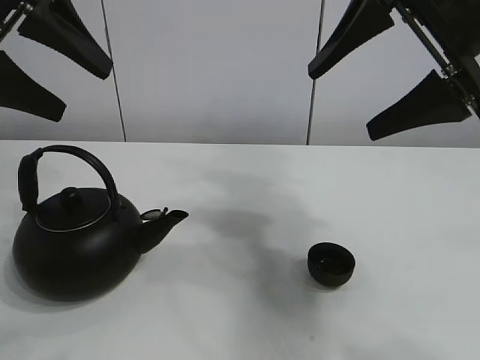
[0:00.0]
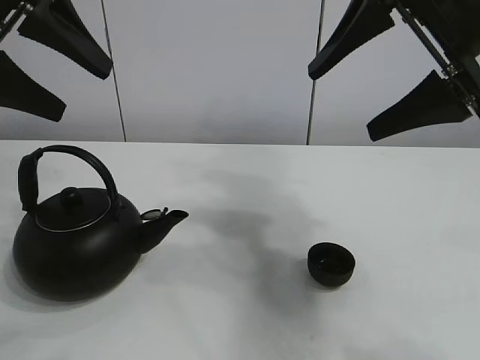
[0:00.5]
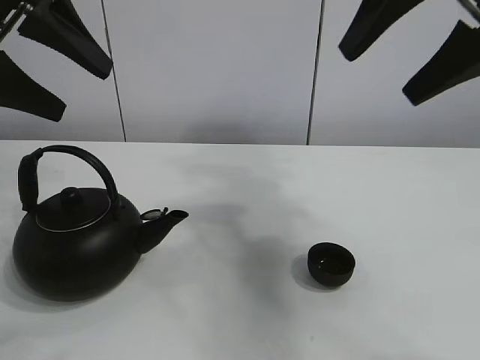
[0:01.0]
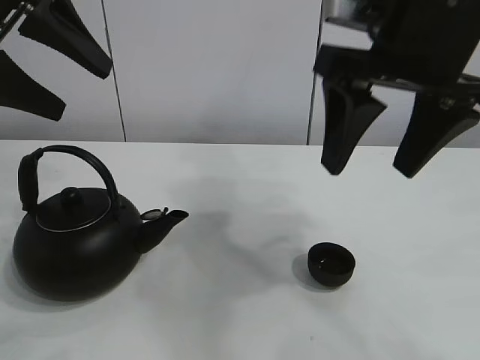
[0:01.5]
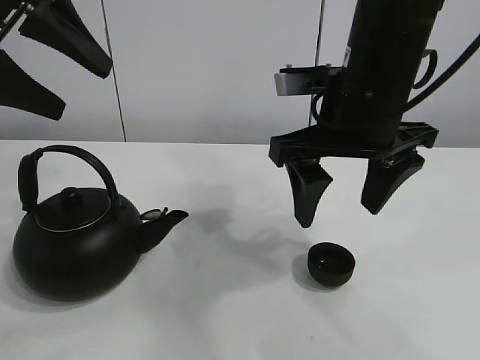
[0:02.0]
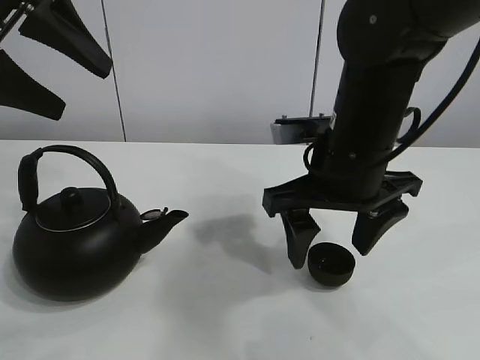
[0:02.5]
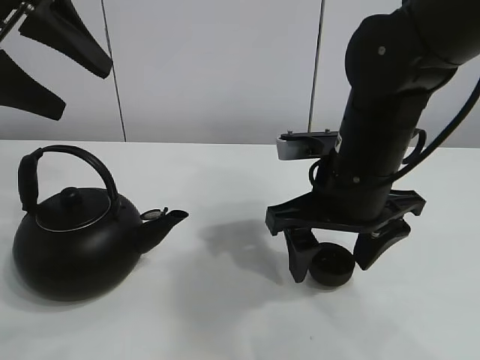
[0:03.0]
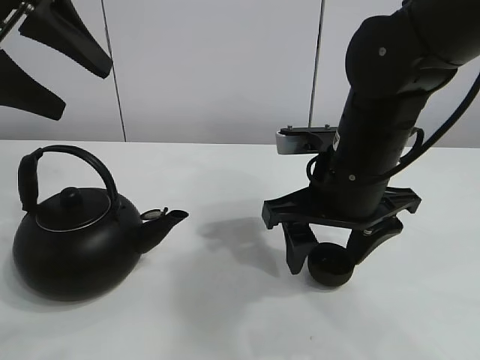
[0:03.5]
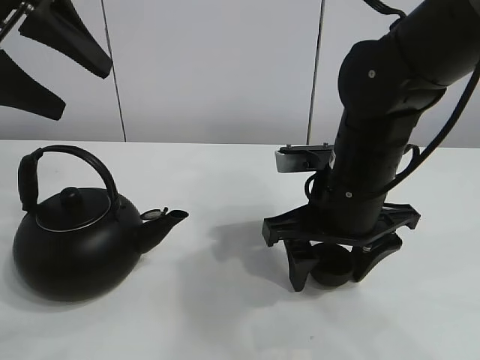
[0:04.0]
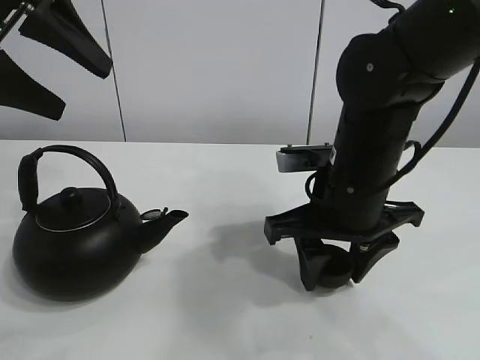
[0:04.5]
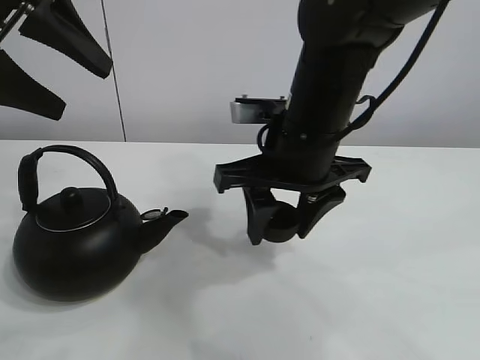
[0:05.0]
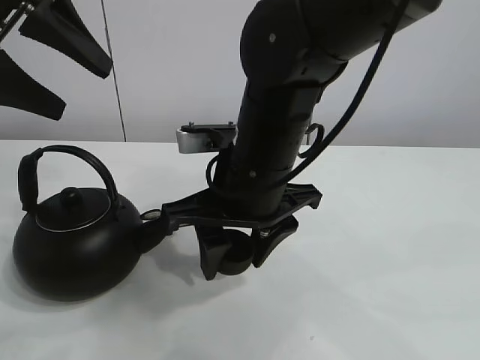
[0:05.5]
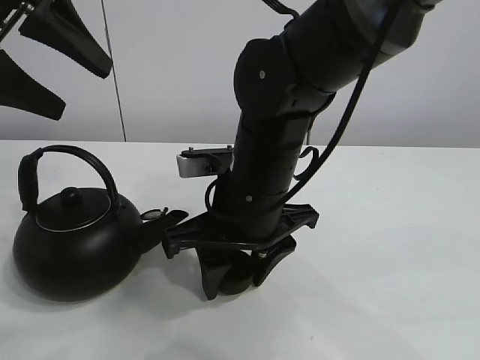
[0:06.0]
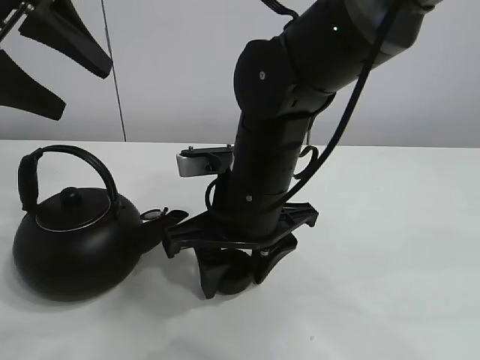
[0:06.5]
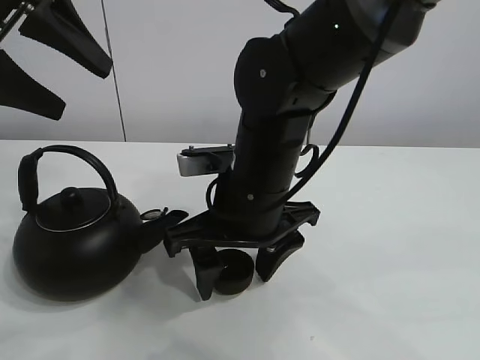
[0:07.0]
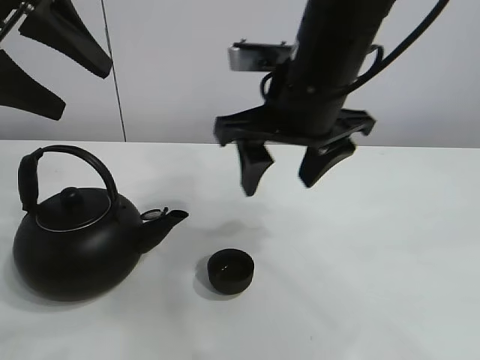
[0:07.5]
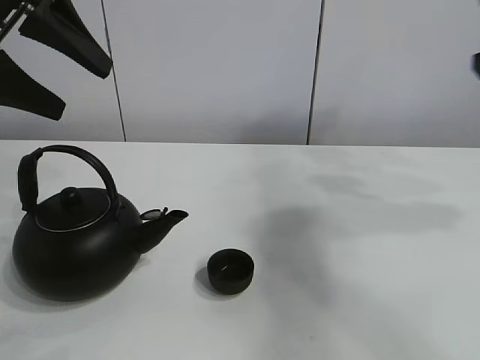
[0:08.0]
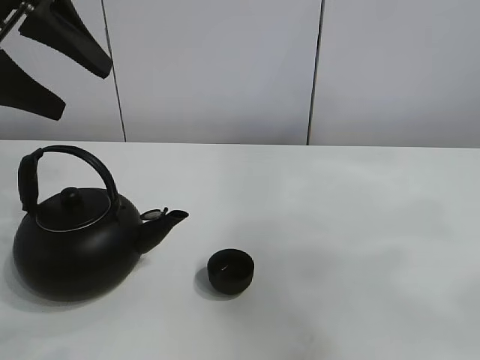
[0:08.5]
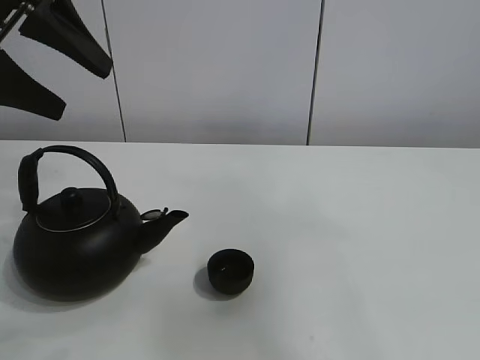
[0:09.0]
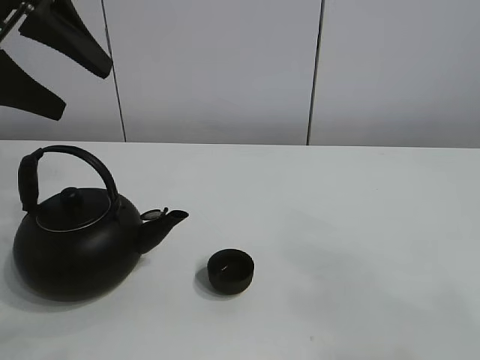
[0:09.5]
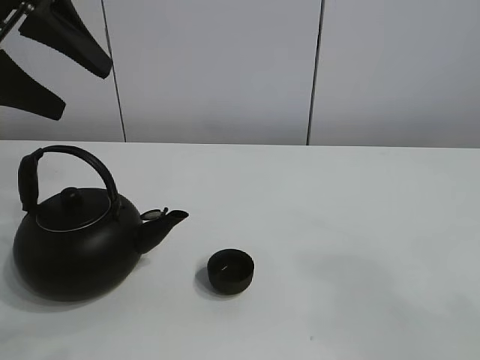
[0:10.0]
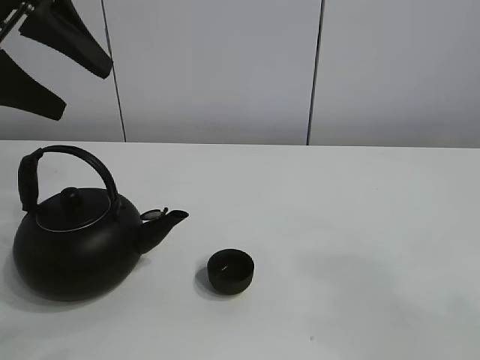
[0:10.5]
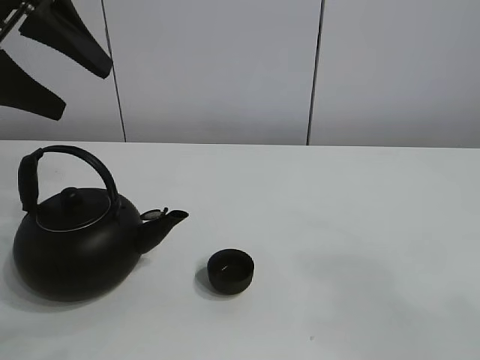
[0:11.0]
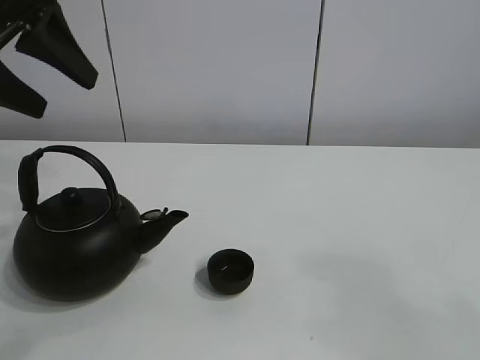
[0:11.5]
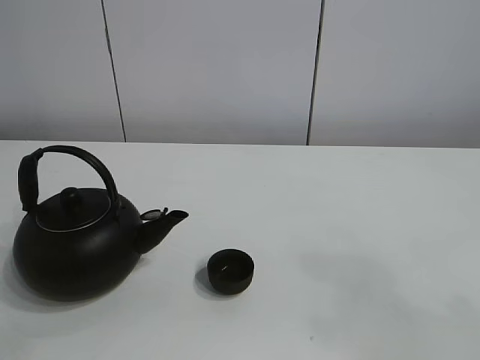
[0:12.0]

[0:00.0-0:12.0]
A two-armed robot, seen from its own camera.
Task of the whole recording: pour tea into the teacup.
Step, 0:00.0 to 0:04.0: Pick up the teacup with the right gripper.
Step, 0:05.0 to 0:06.5: Place the teacup in the center of view with the right gripper.
0:02.0 to 0:04.0: The right gripper is displaced downward by roughly 10 cm.
0:04.0 to 0:06.0: The right gripper goes about 10 cm to the left, and closes up.
0:06.0 to 0:08.0: The right gripper travels to the right and upward by approximately 30 cm, and opens up.
0:08.0 to 0:10.0: The right gripper shifts approximately 35 cm backward.
0:10.0 to 0:12.0: The left gripper goes about 10 cm upward.

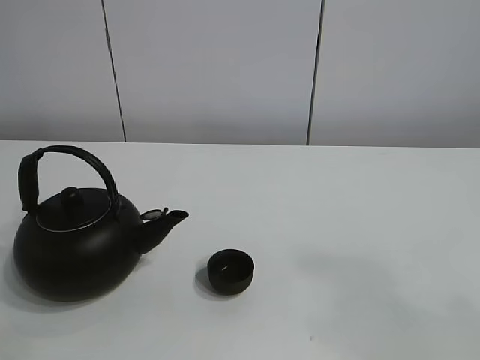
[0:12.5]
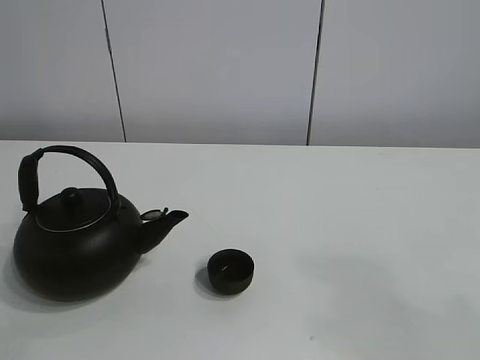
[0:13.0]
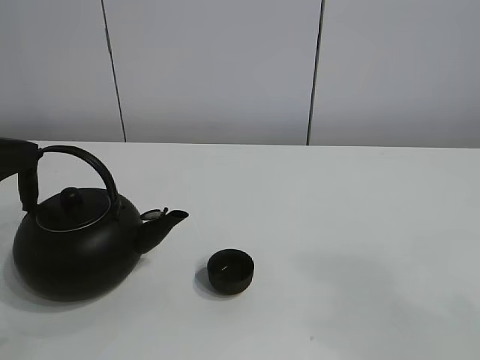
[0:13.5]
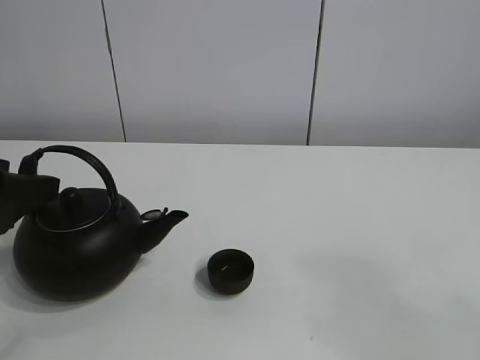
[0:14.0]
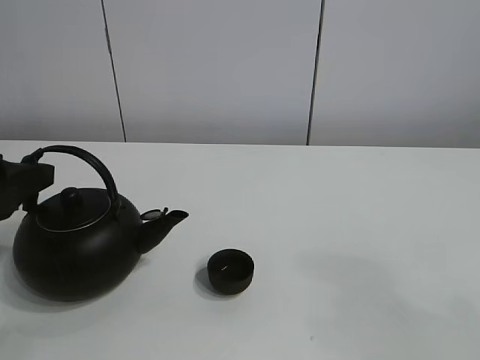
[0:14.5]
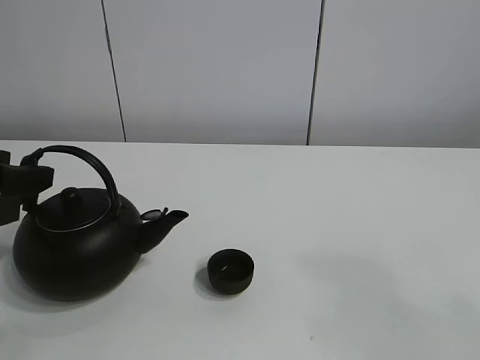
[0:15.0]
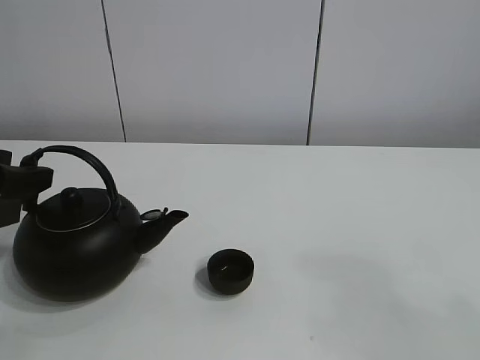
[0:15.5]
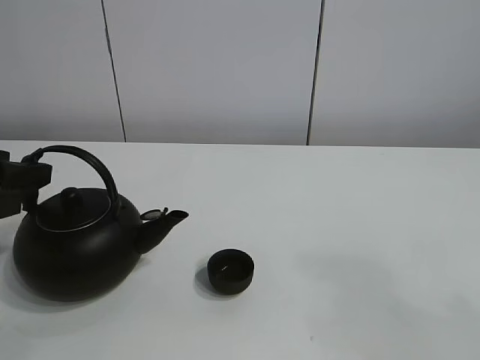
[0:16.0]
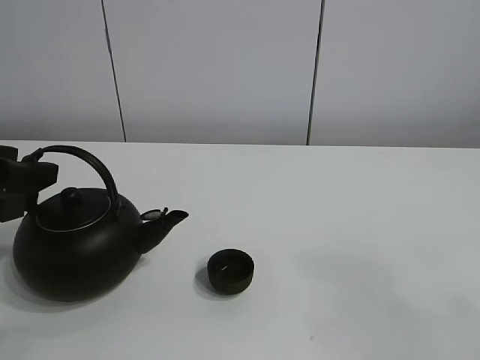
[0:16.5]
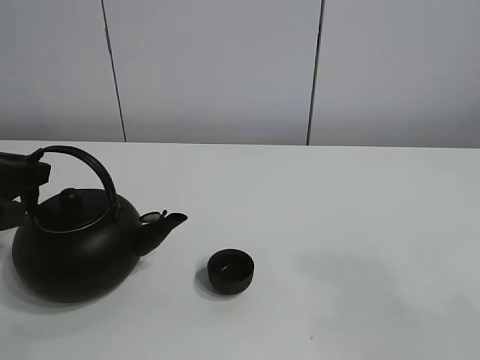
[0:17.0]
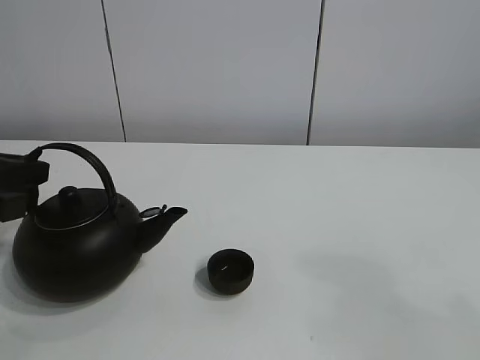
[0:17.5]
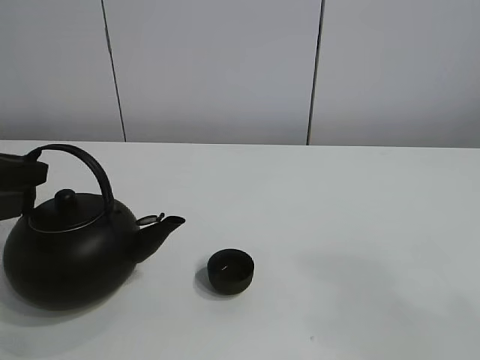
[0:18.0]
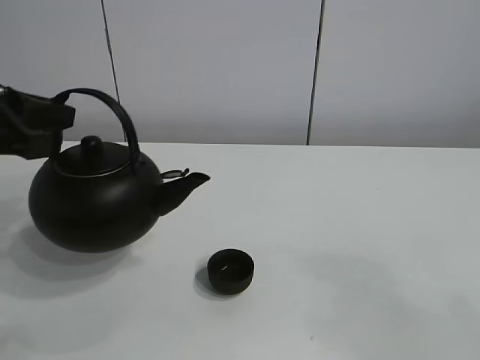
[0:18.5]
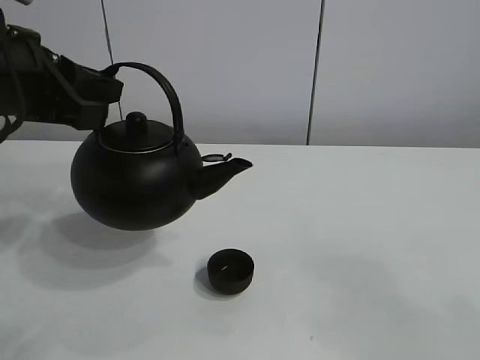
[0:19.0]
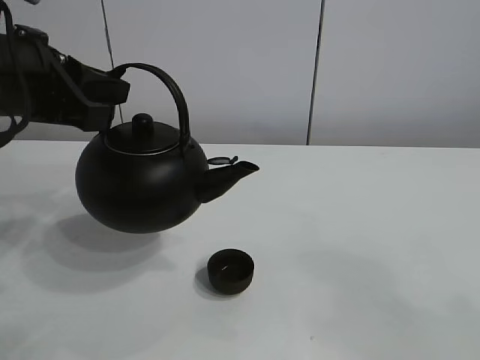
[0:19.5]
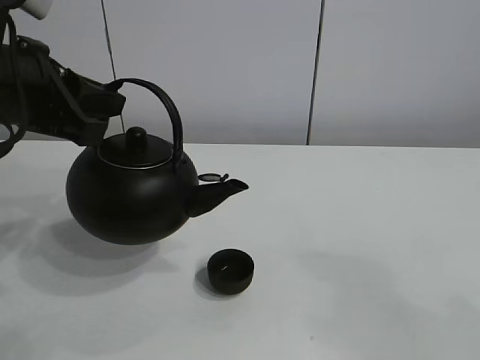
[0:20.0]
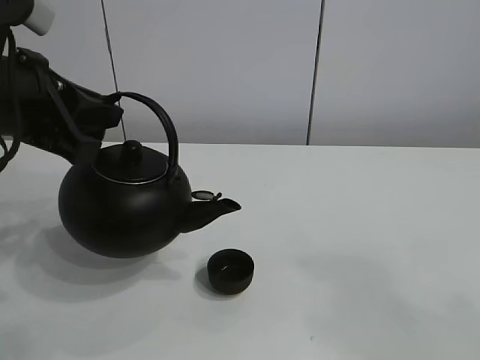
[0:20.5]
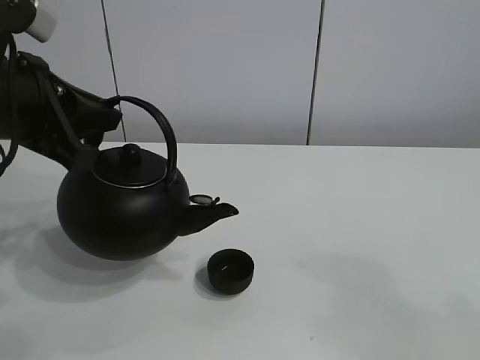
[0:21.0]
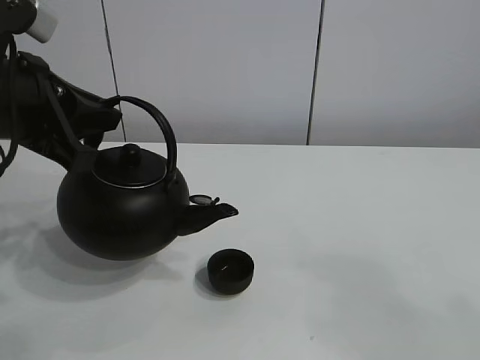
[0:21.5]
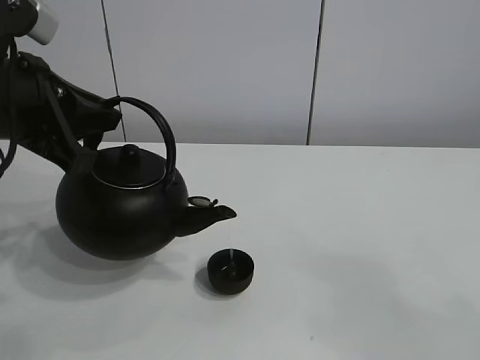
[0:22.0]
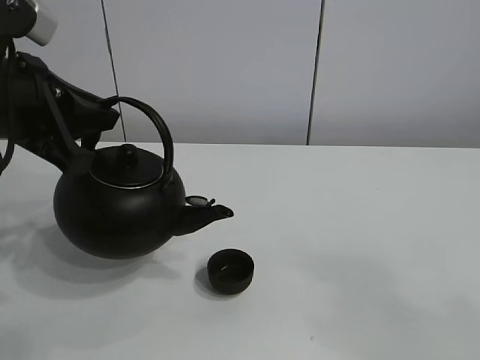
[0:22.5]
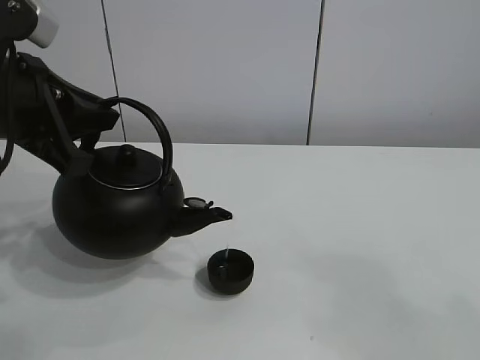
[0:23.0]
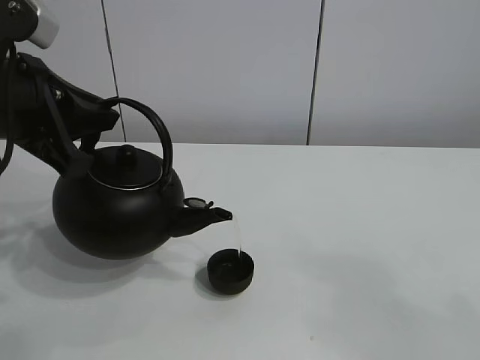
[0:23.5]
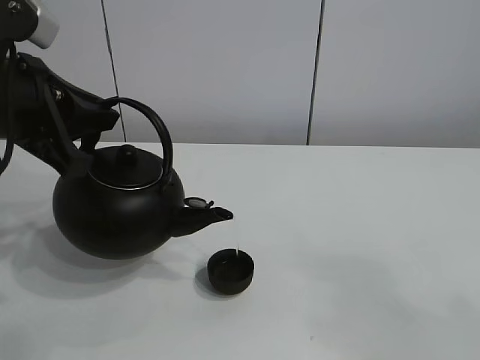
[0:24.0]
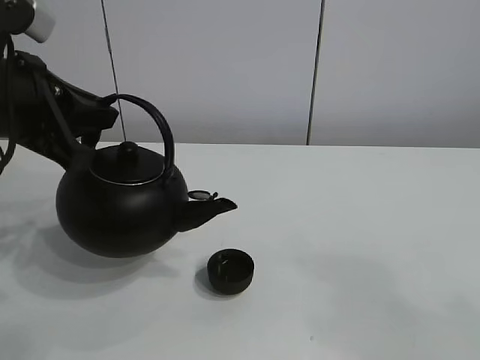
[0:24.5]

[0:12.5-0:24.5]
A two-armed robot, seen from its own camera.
Task of the whole recording: pour tea into the teacup.
Step, 0:12.5 to 0:18.0: Pick up the teapot with the left gripper.
0:12.5 to 0:14.5: The left gripper travels downward by some 20 cm.
0:16.5 to 0:18.5: The left gripper goes about 5 cm upward, and closes up.
0:18.5 to 0:22.5: The grippers move only a little.
0:22.5 to 0:24.5: Both grippers stay put.

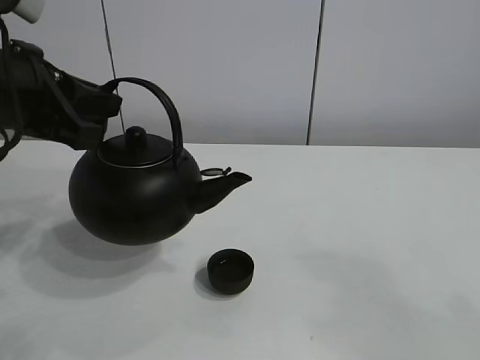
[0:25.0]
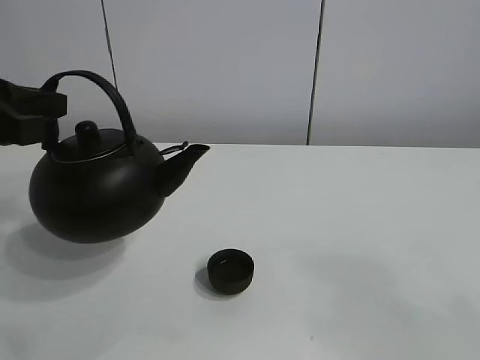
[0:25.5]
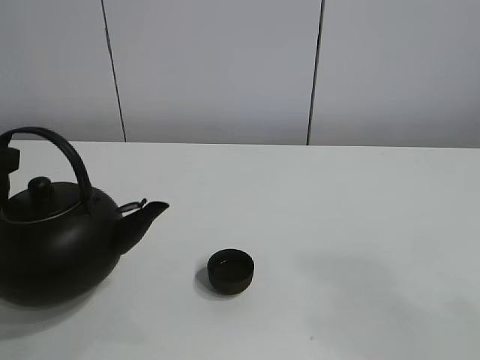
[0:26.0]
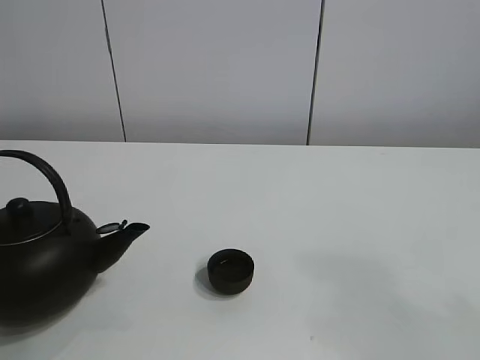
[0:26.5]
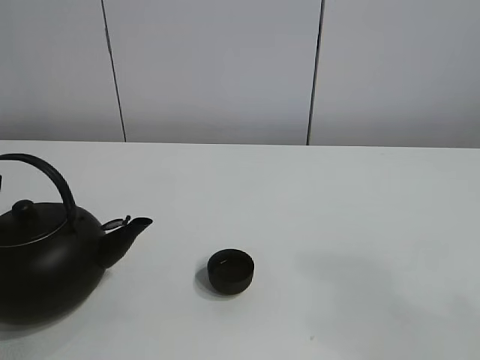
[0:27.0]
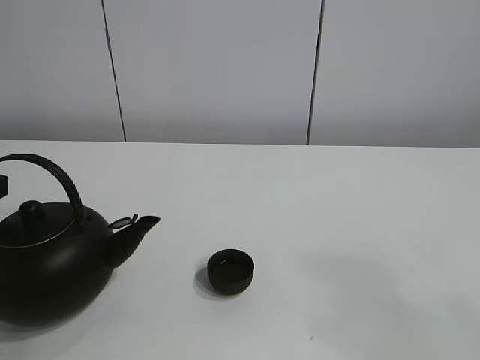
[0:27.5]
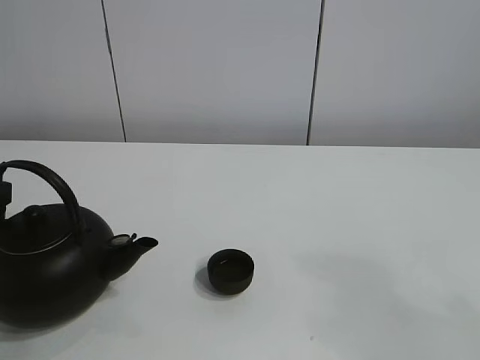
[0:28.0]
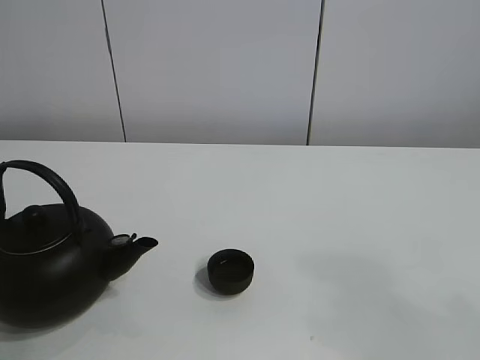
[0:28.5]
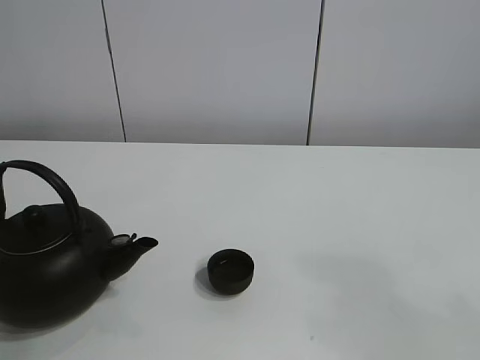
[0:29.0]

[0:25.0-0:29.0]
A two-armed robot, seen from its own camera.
Task of the whole recording: pour tea into the teacup.
0:25.0 to 0:27.0: The left gripper moves to the left, downward and backward, some 15 cm.
0:27.0 to 0:29.0: The left gripper opens.
